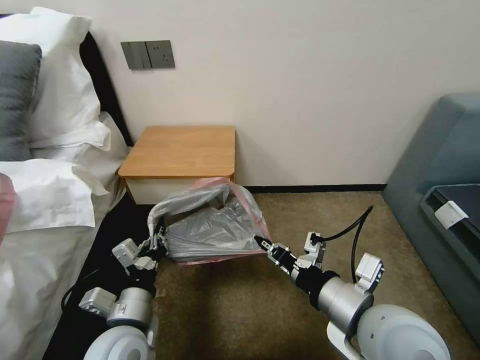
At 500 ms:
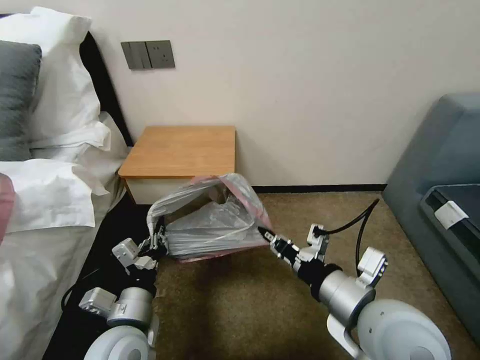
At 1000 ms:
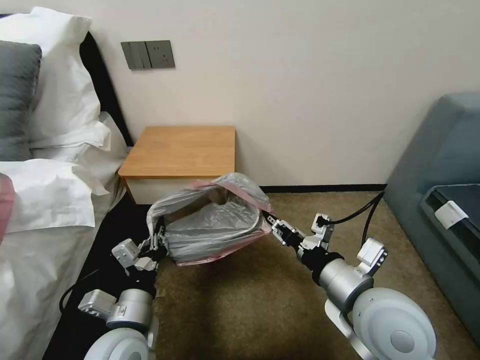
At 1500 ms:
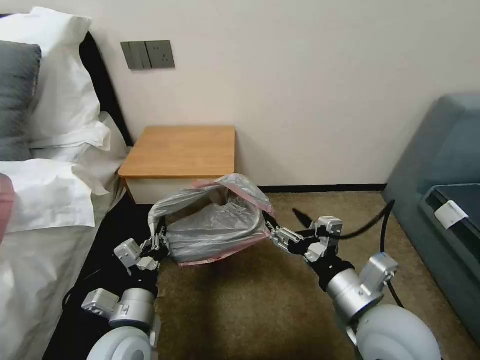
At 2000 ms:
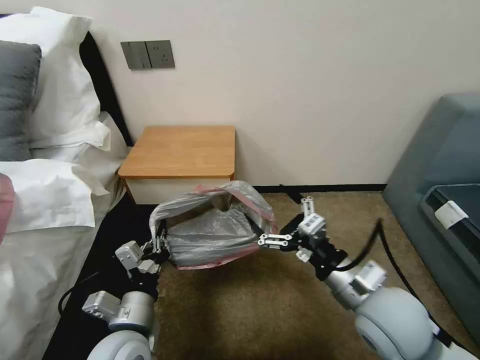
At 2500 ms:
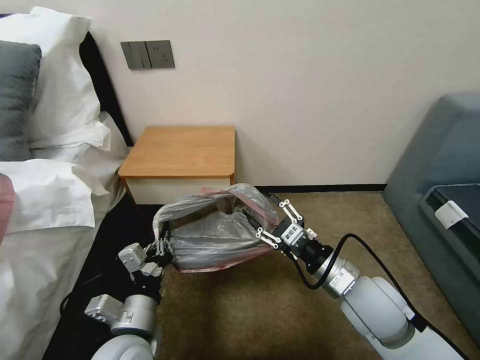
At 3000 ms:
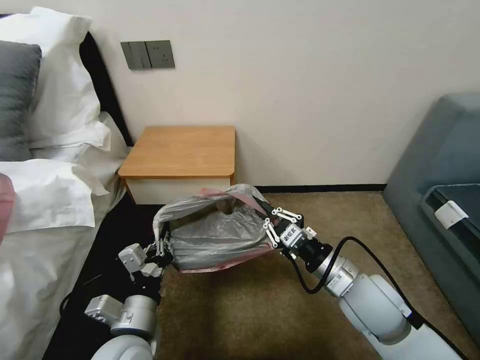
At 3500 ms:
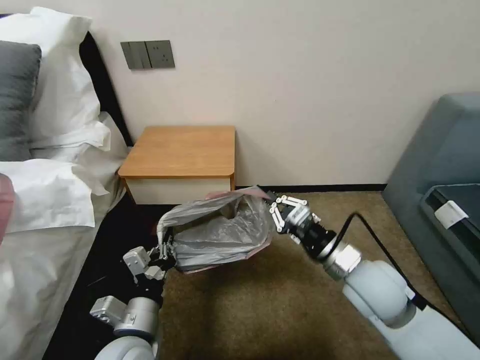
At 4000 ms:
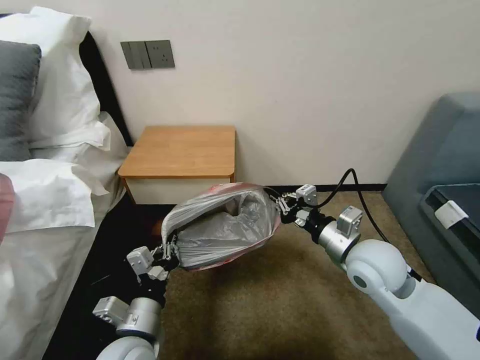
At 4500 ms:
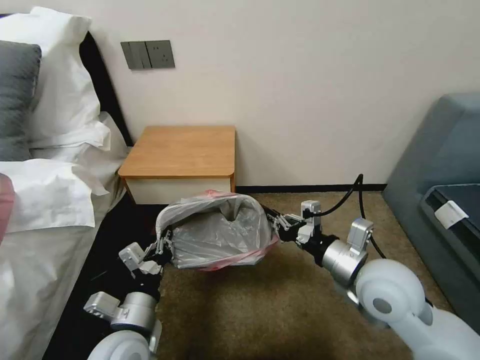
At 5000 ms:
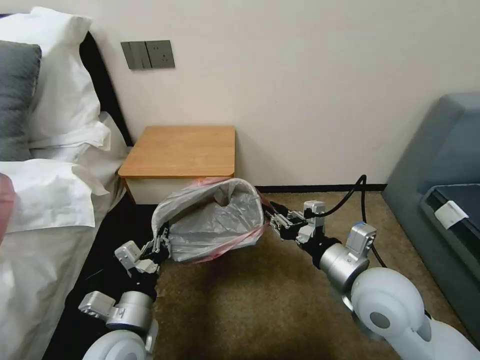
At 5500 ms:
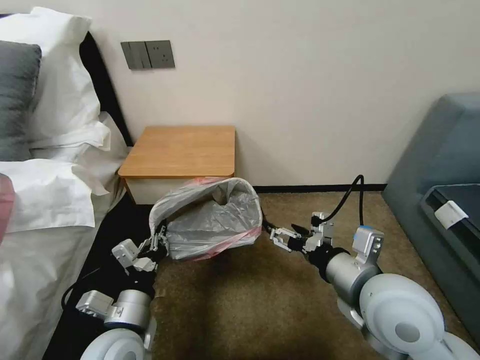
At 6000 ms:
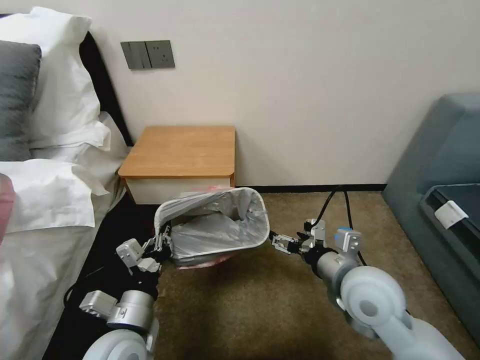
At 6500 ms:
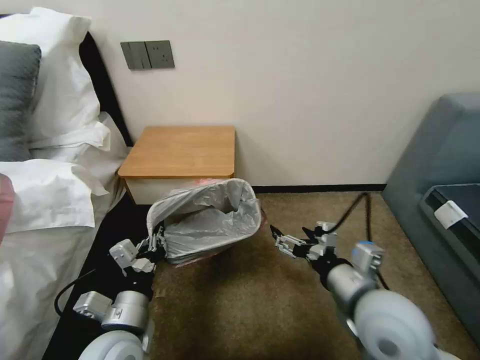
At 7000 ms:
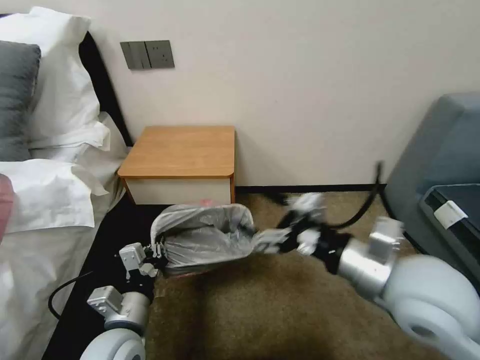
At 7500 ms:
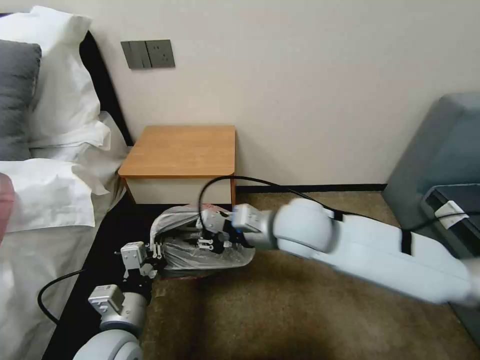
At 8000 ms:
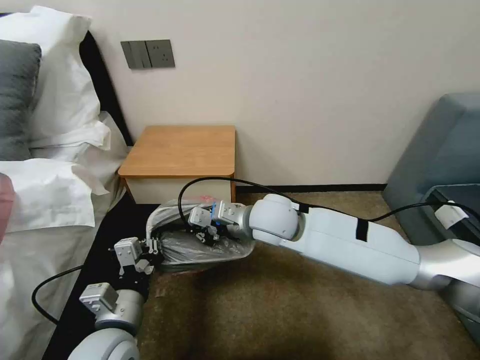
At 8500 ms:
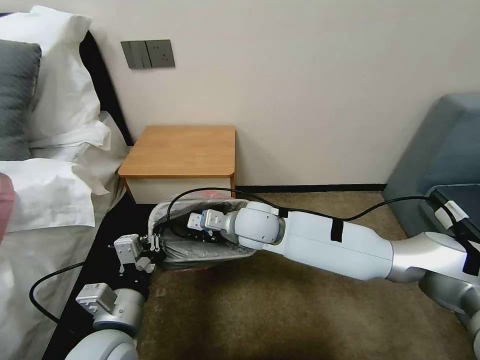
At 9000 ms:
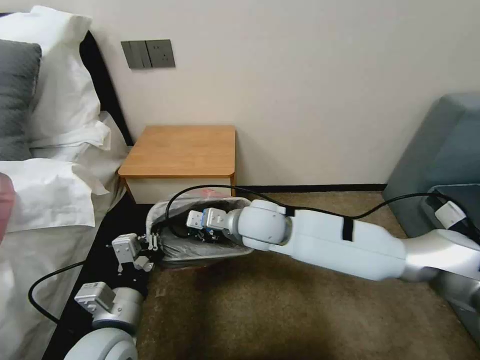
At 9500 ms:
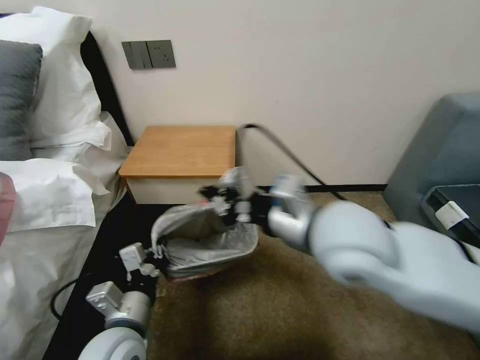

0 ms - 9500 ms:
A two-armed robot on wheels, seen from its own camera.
Task of the whole recording: Pick up the garbage bag from the table and place it over the trash can.
0 ms - 2000 ms: The right gripper changes place by approximately 5 cm, and opens.
2000 ms - 4000 ms: The right gripper shifts about 10 cm forward, and closes up.
4000 ms - 5500 ms: The right gripper moves backward and upward, some 10 cm, and opens up.
5500 ms - 7500 ms: The right gripper moves forward and to the left, roughly 15 cm, and closes its fingers.
7500 ms - 9500 ms: The right gripper goes some 10 cm upward and backward.

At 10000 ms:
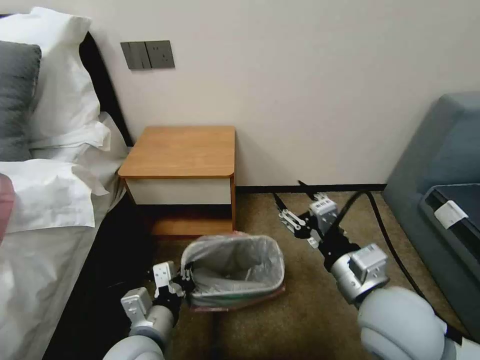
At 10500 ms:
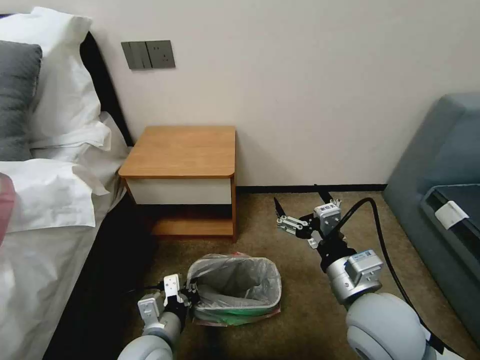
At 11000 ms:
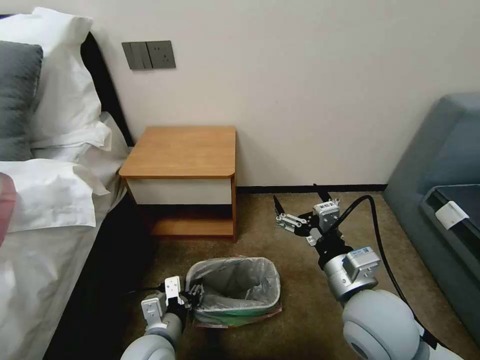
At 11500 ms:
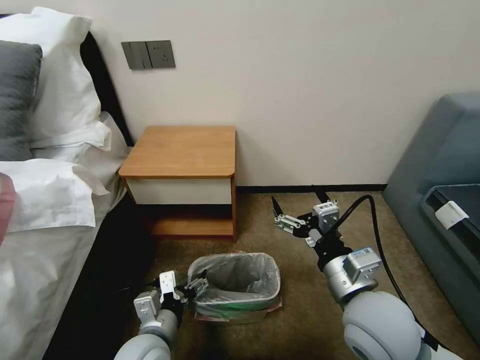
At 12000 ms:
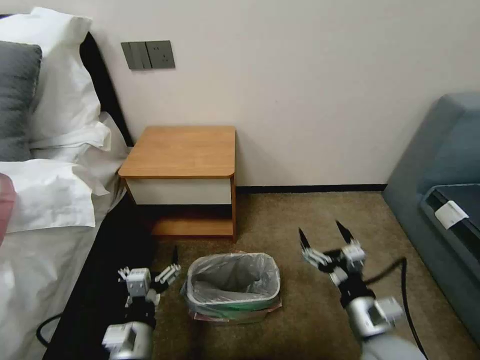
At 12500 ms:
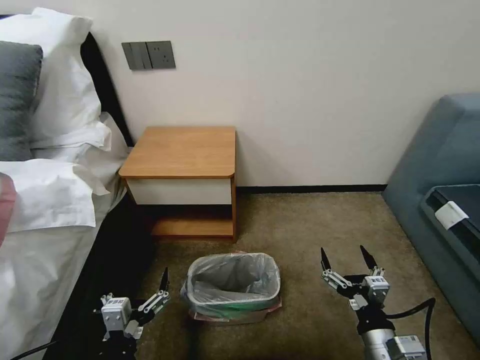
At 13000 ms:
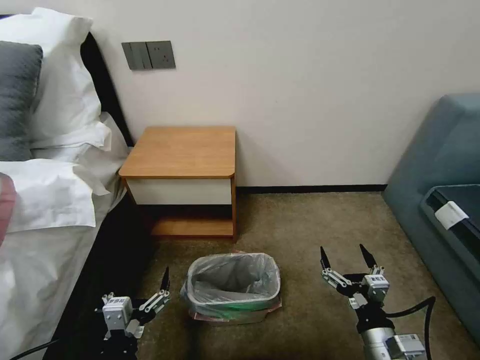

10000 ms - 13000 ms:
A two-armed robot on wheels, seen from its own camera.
Task of the whole recording: Pick up the garbage bag from the table and place it over the trash can.
10000 ms - 11500 ms: The left gripper opens, while the right gripper opens up.
11500 ms - 13000 ms: The right gripper shifts about 20 cm downward, backward and to the right. Meanwhile the left gripper heads backward, covering about 10 cm.

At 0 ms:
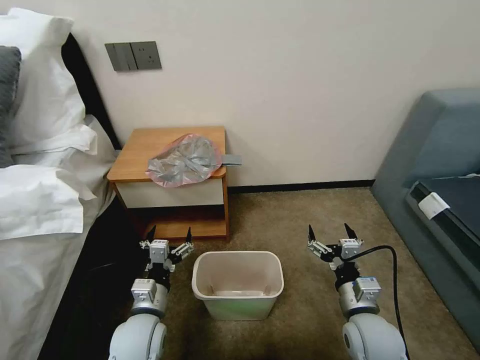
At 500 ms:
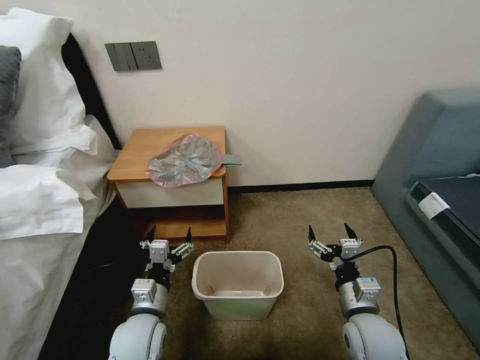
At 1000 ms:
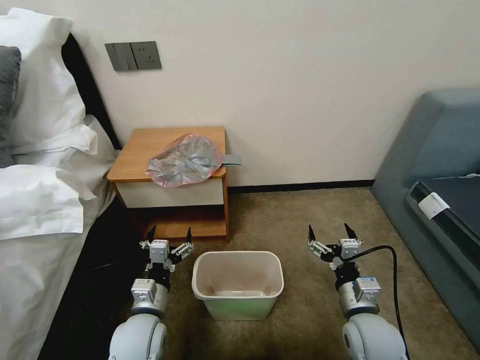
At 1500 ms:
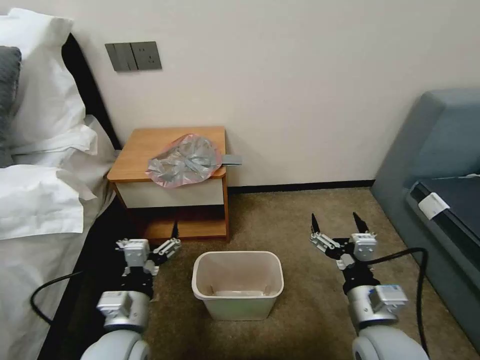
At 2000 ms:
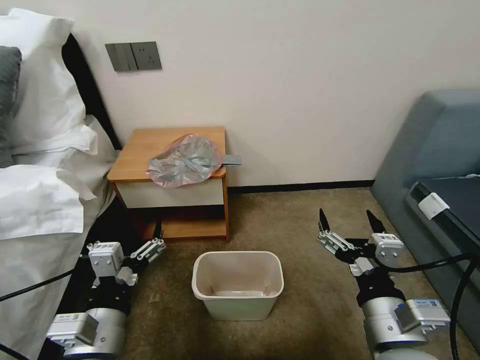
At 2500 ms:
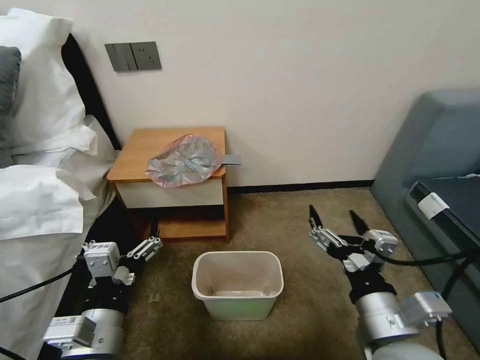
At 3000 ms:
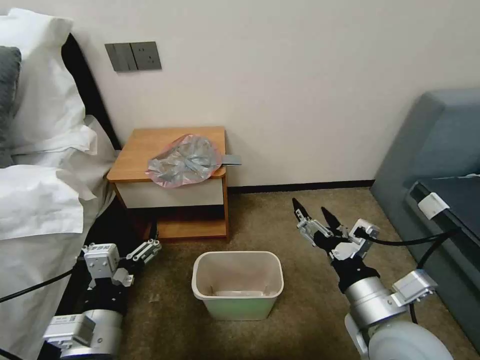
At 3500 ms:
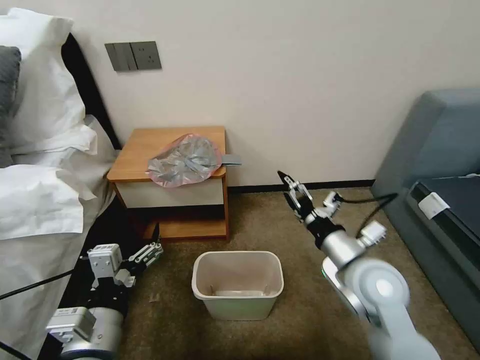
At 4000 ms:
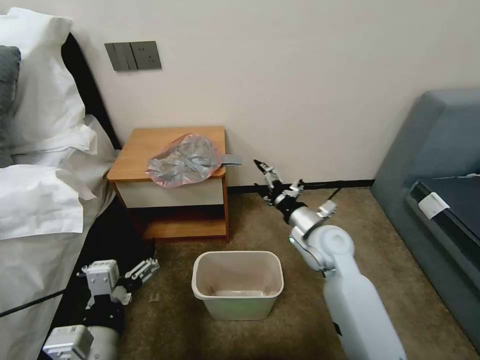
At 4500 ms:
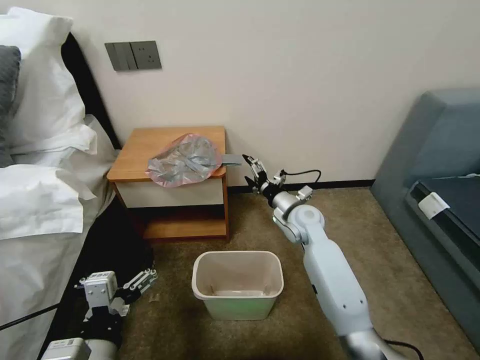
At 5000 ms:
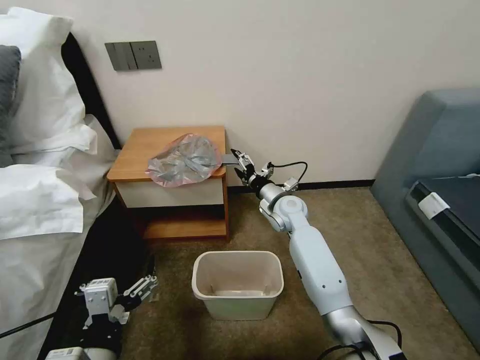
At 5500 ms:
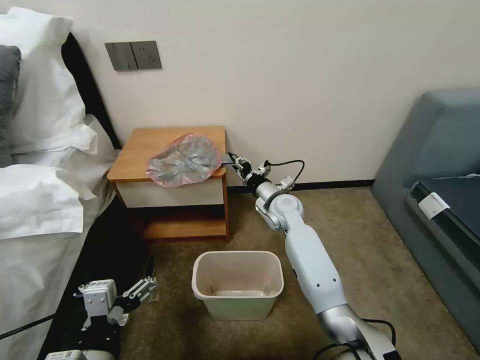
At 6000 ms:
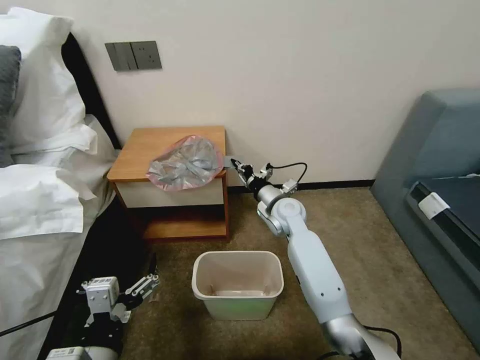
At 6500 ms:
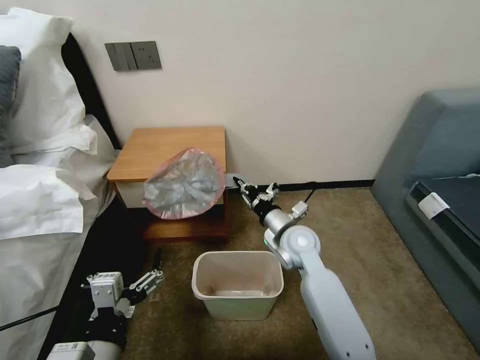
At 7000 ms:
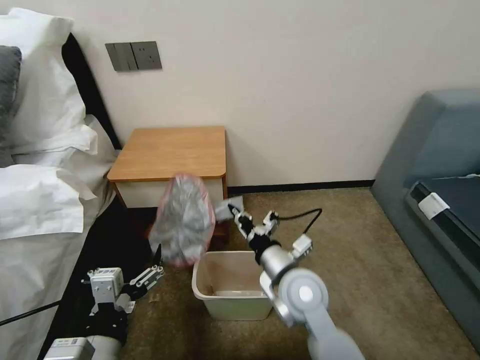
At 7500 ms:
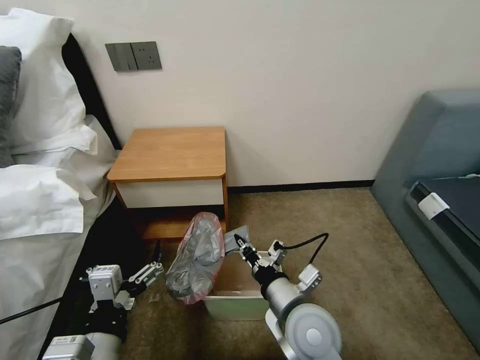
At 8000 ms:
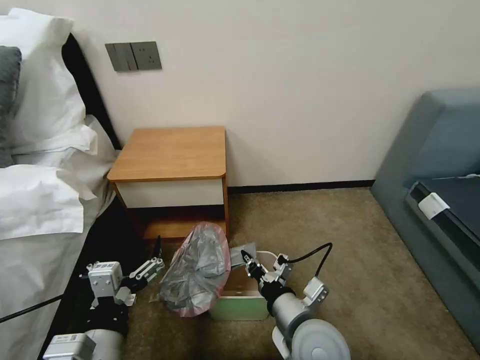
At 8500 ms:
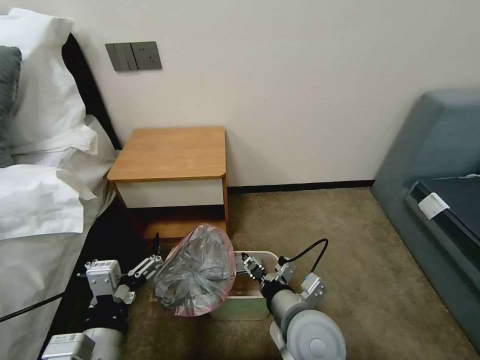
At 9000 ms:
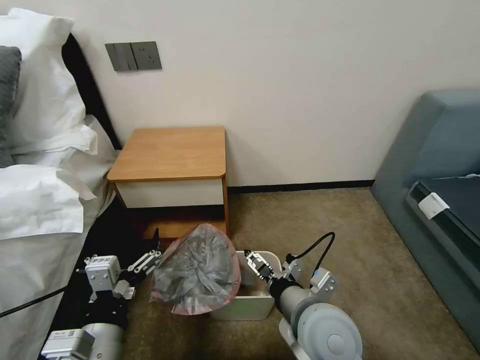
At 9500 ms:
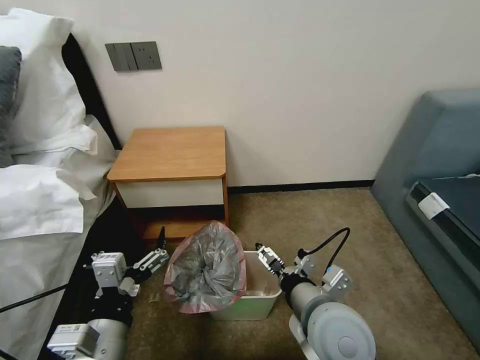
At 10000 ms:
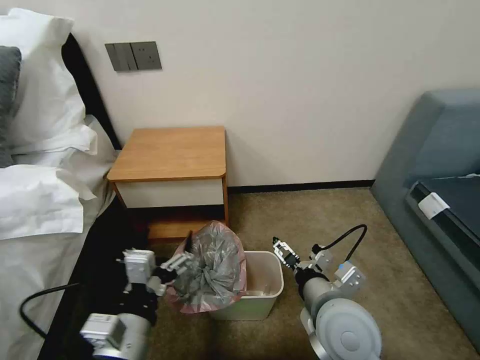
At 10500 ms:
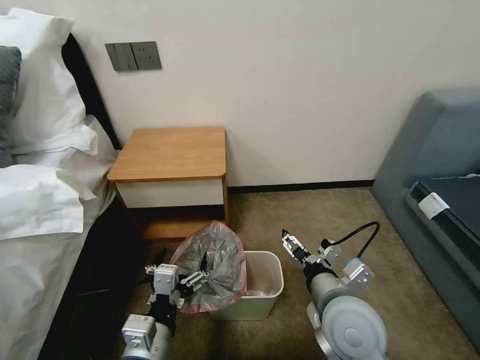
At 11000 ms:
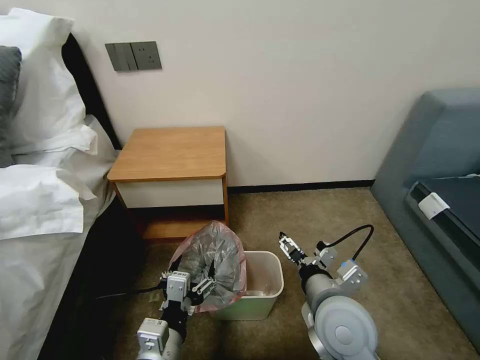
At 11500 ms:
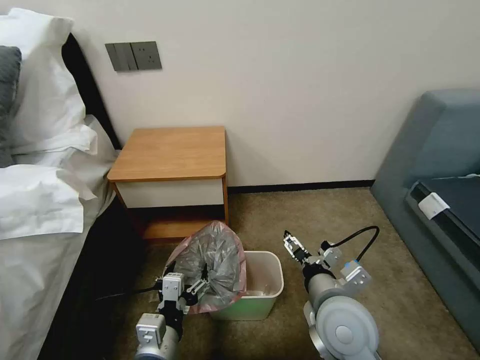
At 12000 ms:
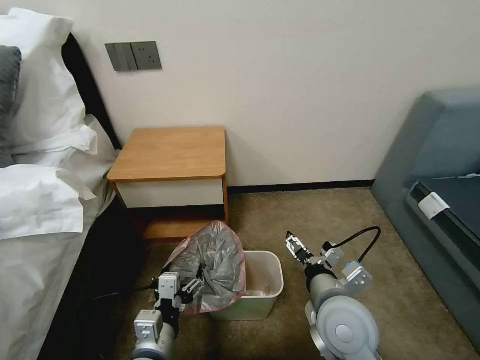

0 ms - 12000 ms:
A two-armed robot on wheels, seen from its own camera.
Task of the whole recording: Pick up the garbage bag from the table and place it over the trash can.
2000 ms - 4000 ms: The right gripper moves forward, approximately 25 cm.
4000 ms - 6000 ms: The right gripper moves forward and to the left, about 15 cm, and closes up.
6000 ms - 8000 ms: The right gripper travels backward by roughly 30 cm.
8000 ms - 10000 ms: The right gripper changes place by some 5 cm, and opens up.
10000 ms - 12000 ms: The left gripper goes some 10 cm downward.

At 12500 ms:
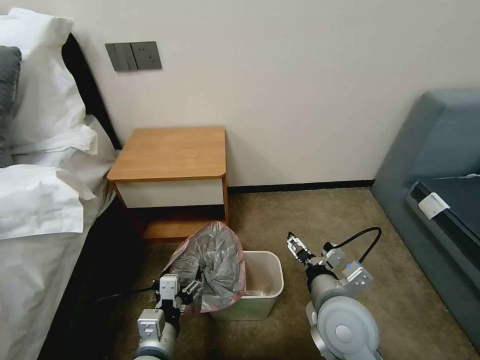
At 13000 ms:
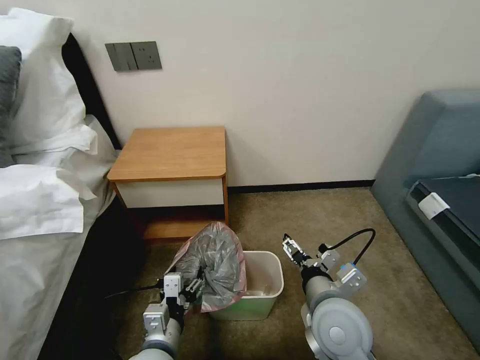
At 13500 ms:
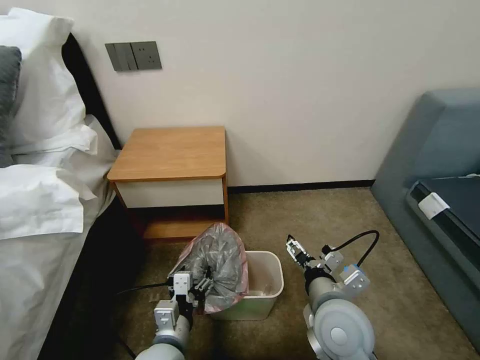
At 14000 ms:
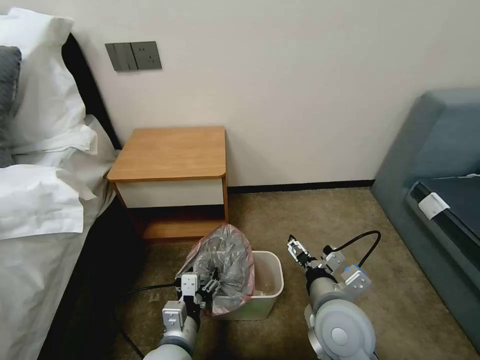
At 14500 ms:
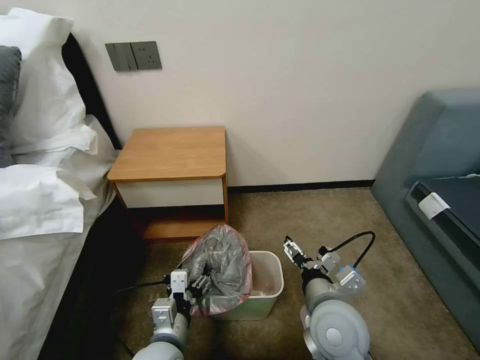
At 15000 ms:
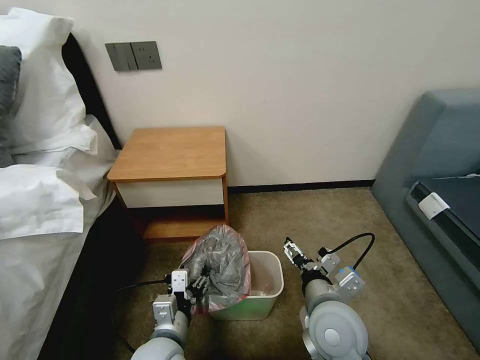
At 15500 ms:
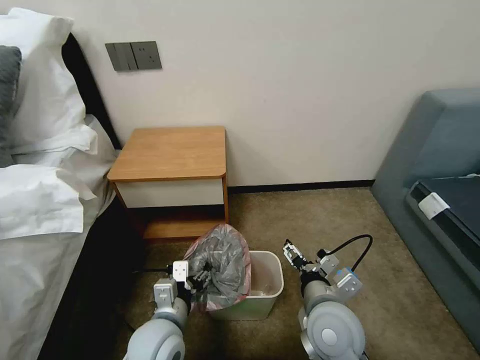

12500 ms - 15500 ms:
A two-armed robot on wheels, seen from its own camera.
Task of the whole recording: Pick up the garbage bag from the table and place it over the trash can.
12500 ms - 14000 ms: The grippers move only a little.
14000 ms - 15500 ms: The left gripper moves about 5 cm.
